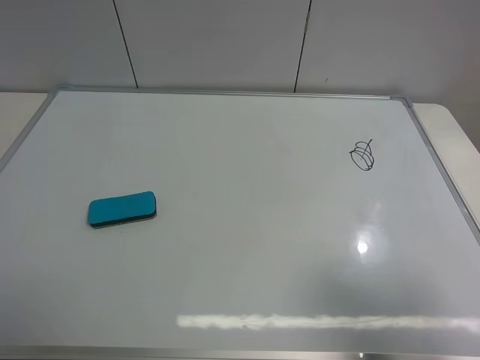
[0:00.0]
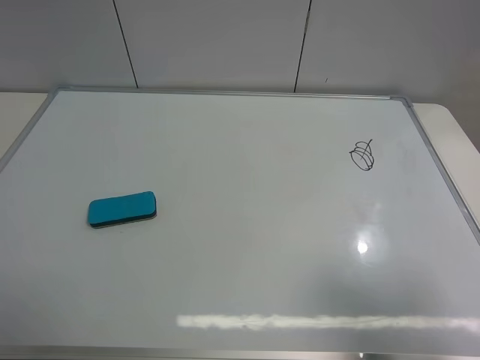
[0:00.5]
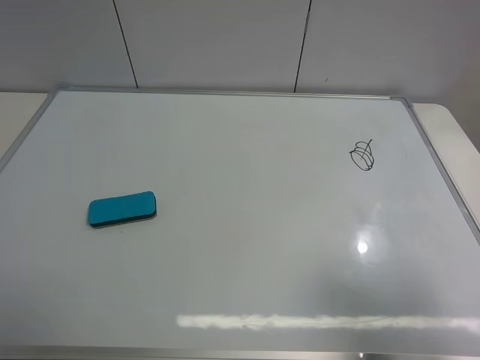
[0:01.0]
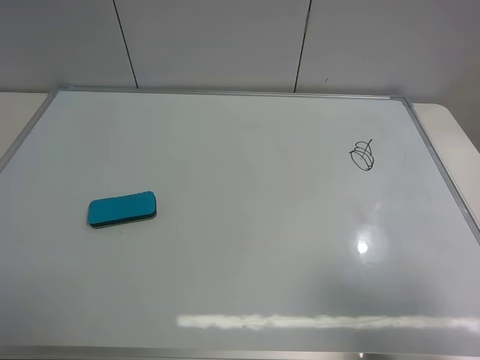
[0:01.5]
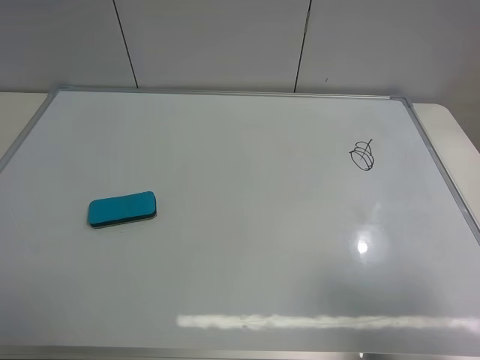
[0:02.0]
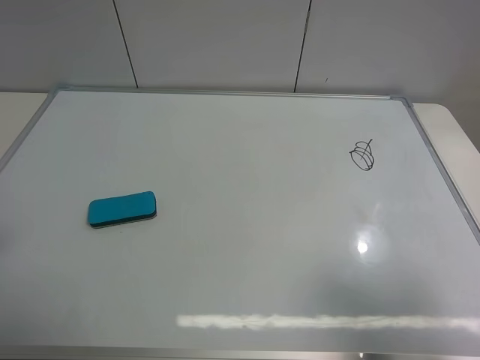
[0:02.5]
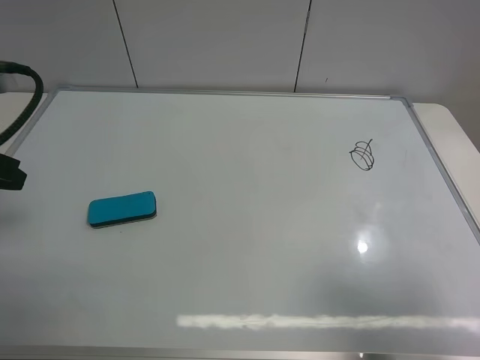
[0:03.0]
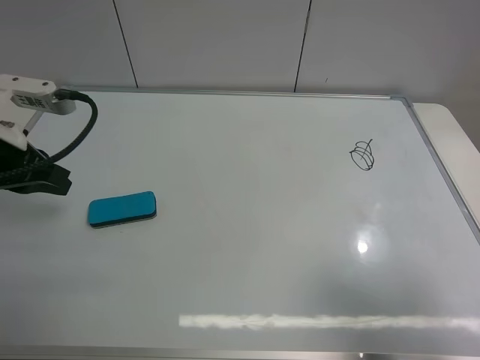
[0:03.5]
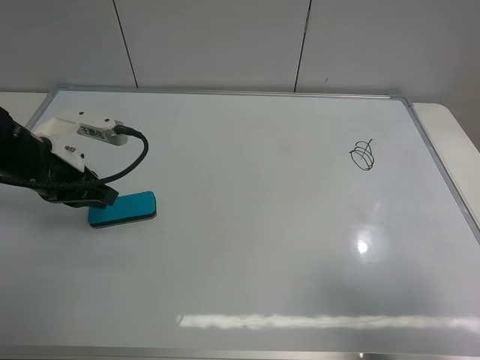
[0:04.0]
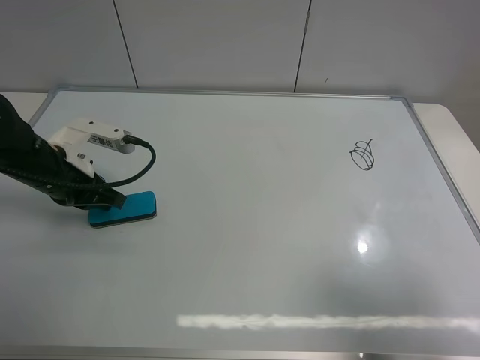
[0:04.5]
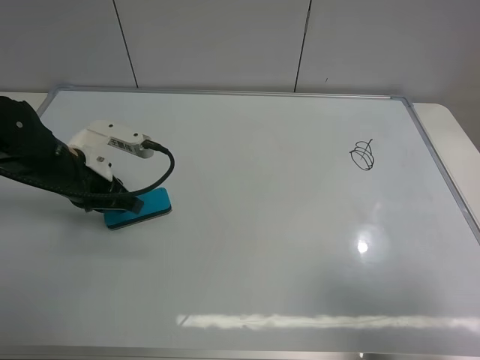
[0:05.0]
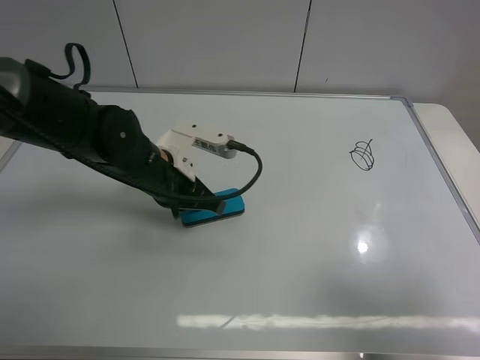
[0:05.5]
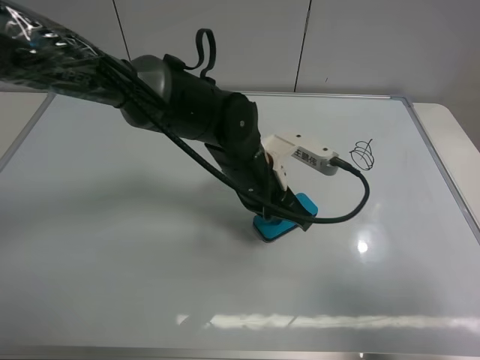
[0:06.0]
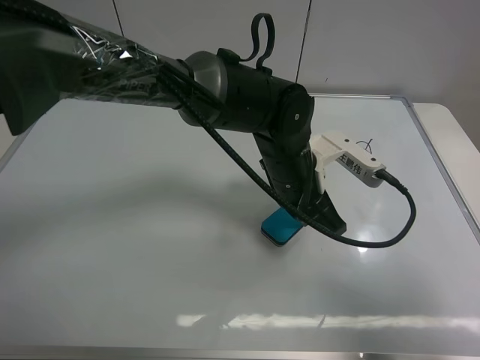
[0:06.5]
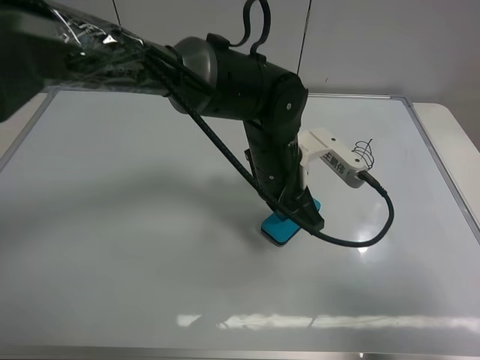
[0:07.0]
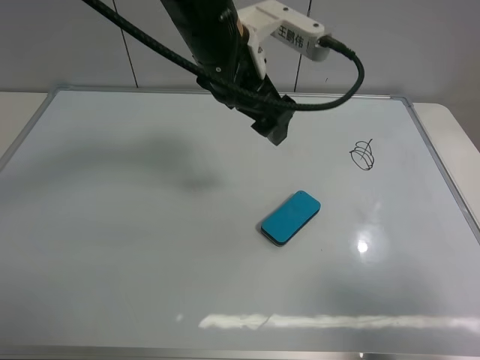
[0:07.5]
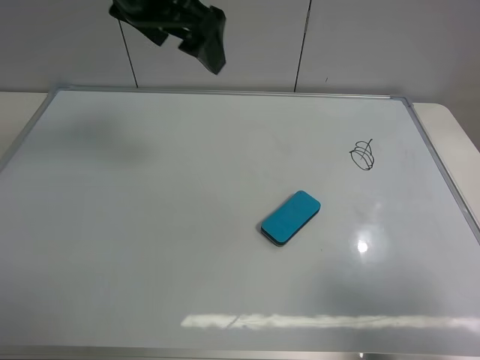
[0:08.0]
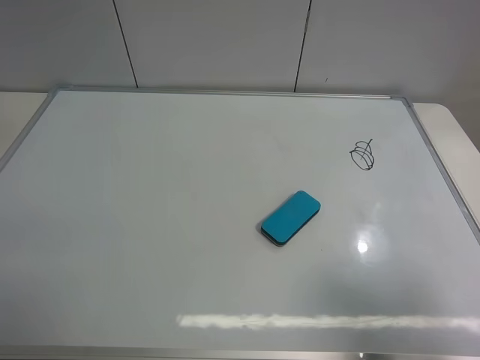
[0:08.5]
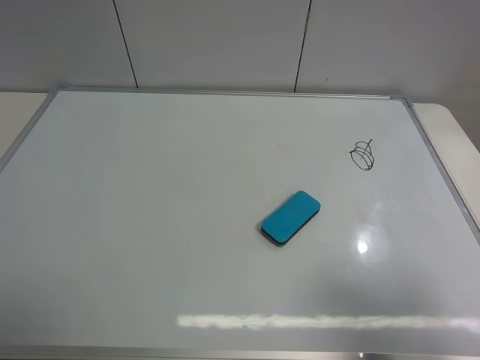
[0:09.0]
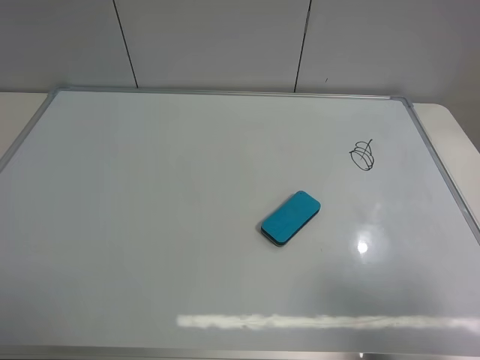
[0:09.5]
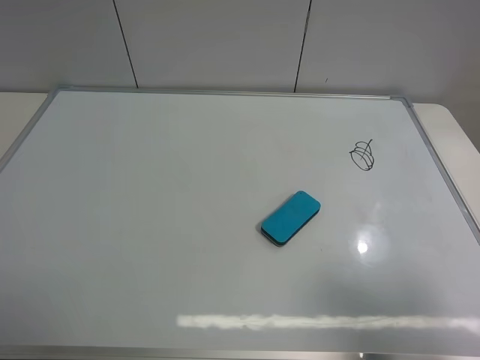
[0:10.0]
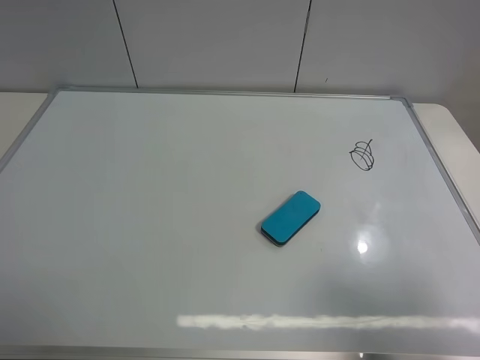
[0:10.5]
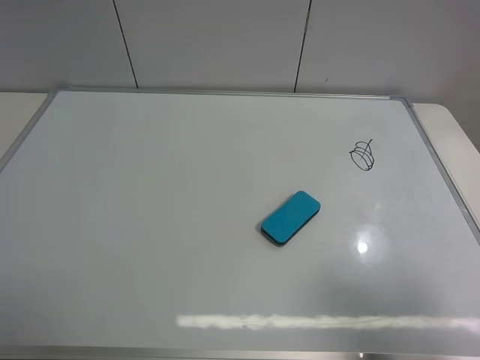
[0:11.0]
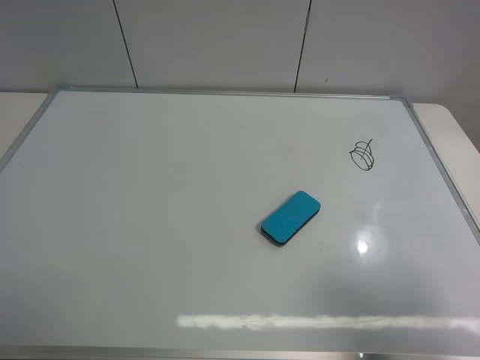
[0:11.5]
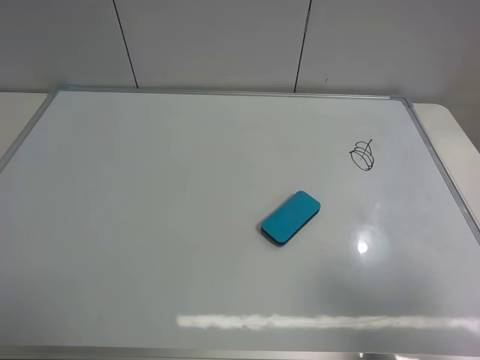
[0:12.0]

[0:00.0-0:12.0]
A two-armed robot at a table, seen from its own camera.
Task of the whole recording: use the left gripper to place the eraser in the right, use the right gripper to pick up the eraser, wipe the notes on the whiteboard clean, and then put it down.
Step, 0:00.0 to 0:07.0: Move the board eraser to the right of the whiteboard with left gripper.
0:02.0 to 0:04.0: The left gripper moves forward and downward, roughly 25 cm, and closes.
0:04.0 to 0:06.0: The left gripper heads to the right, covering approximately 30 cm.
0:06.0 to 0:08.0: The left gripper shifts about 30 cm upward and to the left, and opens its fingers.
0:08.0 to 0:10.0: The left gripper moves backward and to the left, roughly 40 cm.
0:10.0 to 0:12.0: Both grippers stay put.

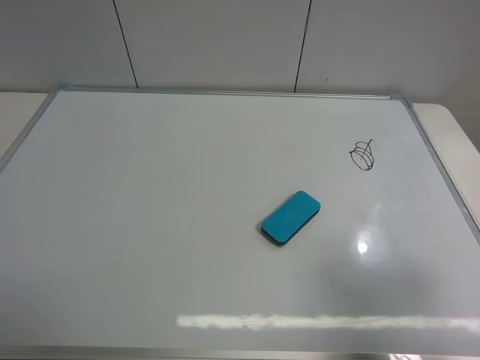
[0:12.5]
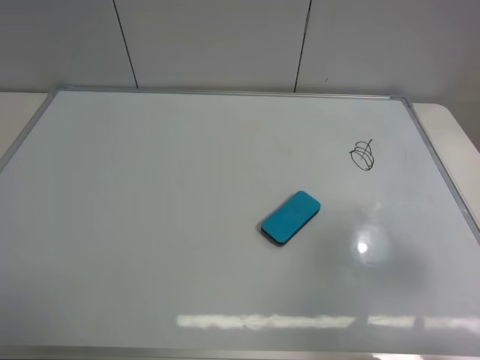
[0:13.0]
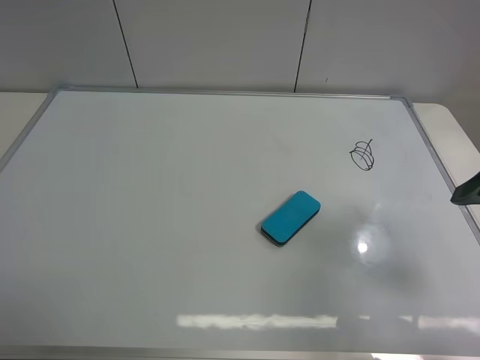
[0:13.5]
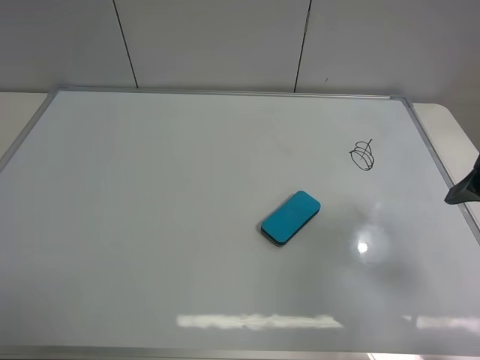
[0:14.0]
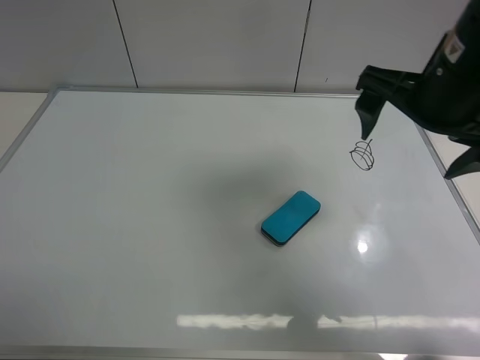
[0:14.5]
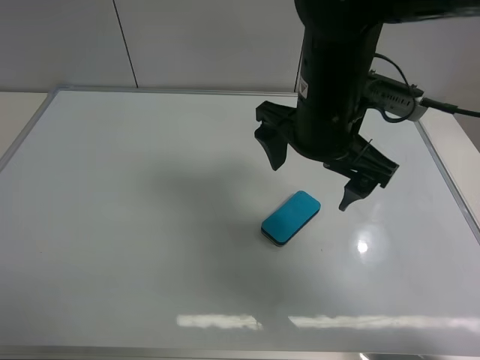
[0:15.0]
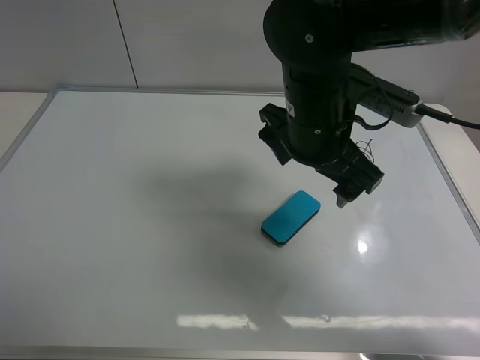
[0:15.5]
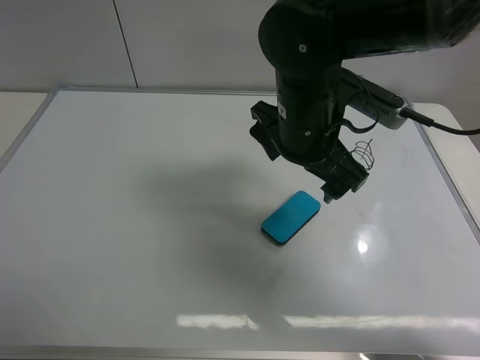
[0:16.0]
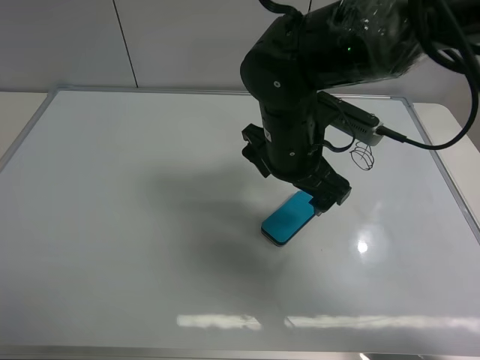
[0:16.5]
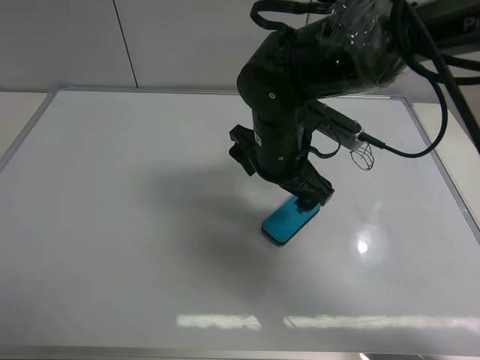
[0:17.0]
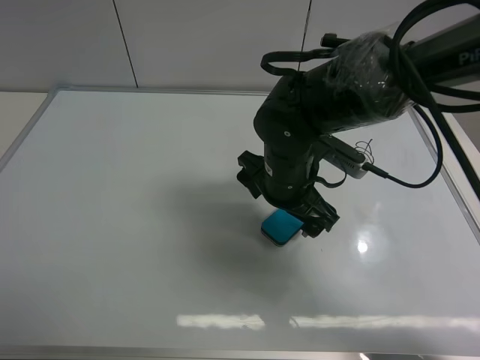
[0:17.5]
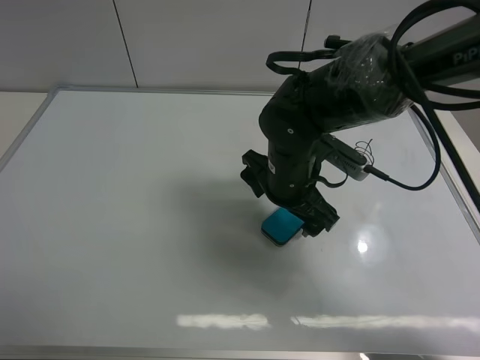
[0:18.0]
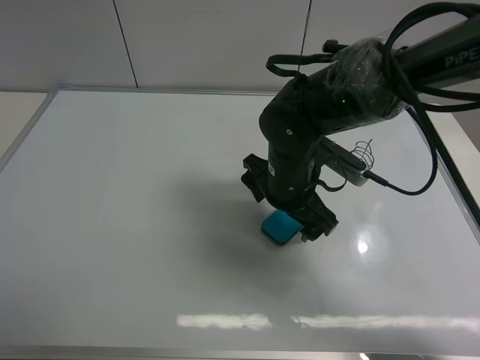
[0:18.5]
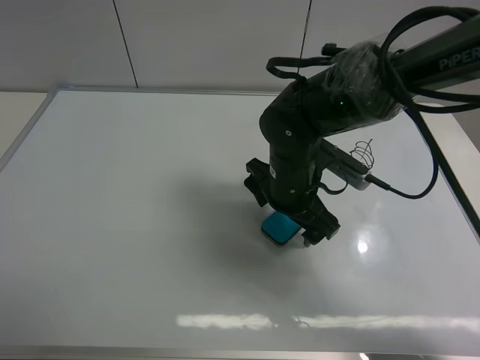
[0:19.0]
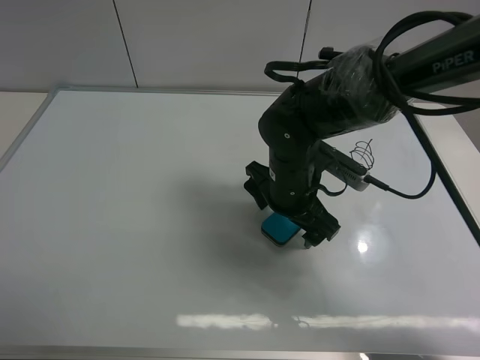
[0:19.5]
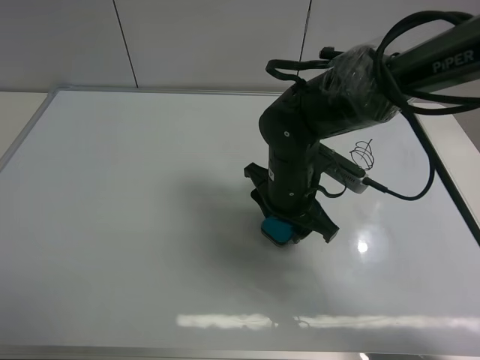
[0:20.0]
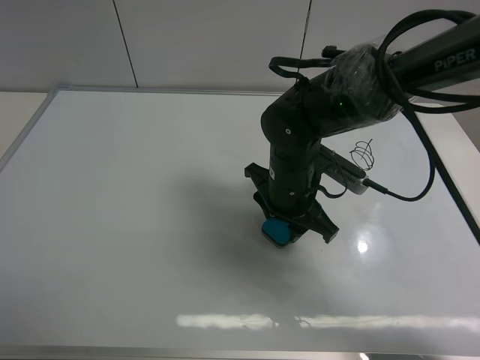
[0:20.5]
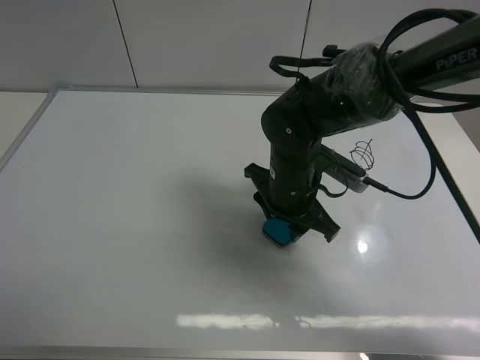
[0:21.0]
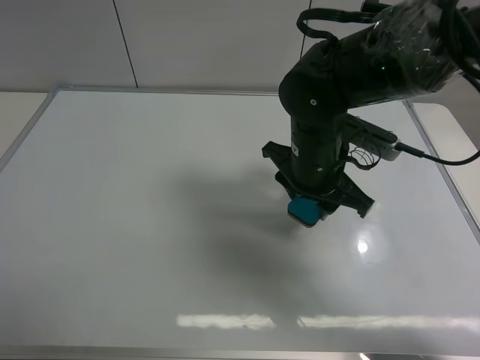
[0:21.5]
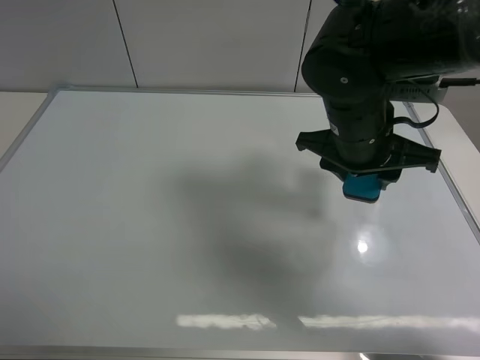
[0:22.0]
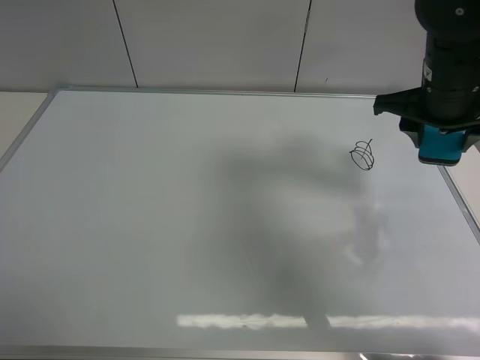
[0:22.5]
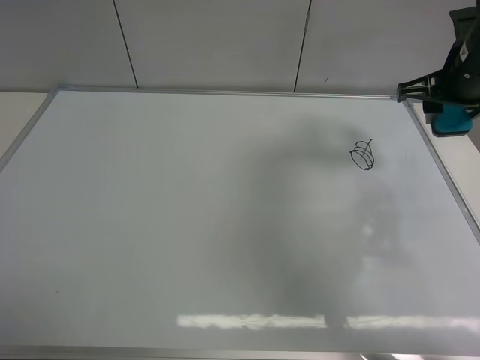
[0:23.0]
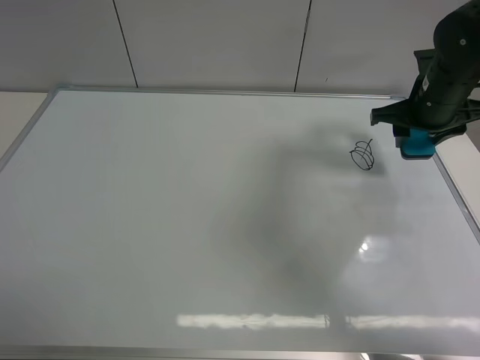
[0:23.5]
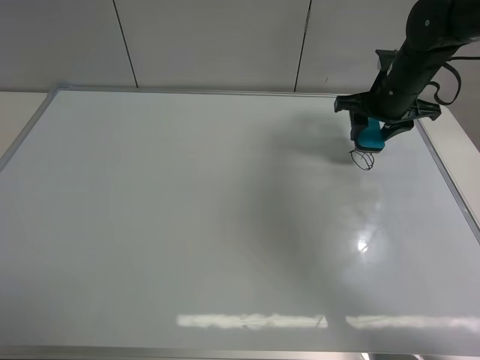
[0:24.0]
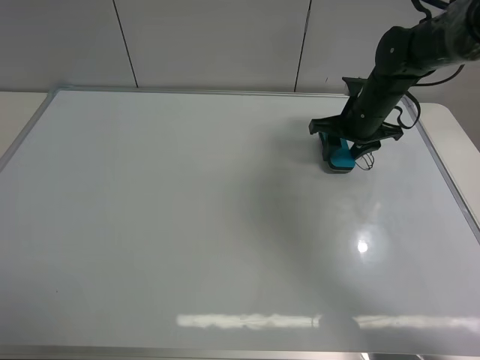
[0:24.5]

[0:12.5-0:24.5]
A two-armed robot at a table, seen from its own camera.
Task of the whole recording: use the left gripper to place the eraser in the right, use the right gripper to pick up the eraser, wipe the notes on the whiteboard clean, and then put it down.
Step, 0:12.5 to 0:21.0: Pick up the board eraser with right gripper.
0:12.5 to 0:14.5: The right gripper travels forward and to the left by approximately 25 cm.
0:14.5 to 0:16.5: The right gripper travels to the left and downward by about 15 cm.
0:16.5 to 0:18.5: The right gripper goes about 5 cm downward.
0:18.5 to 0:20.5: The right gripper closes up.
0:20.5 to 0:22.5: The right gripper heads to the right and upward, covering about 20 cm.
0:22.5 to 0:24.5: The right gripper moves forward and downward, about 15 cm.

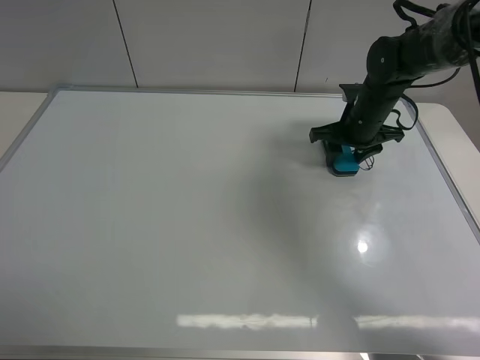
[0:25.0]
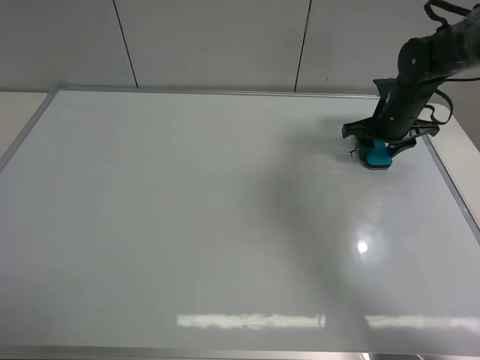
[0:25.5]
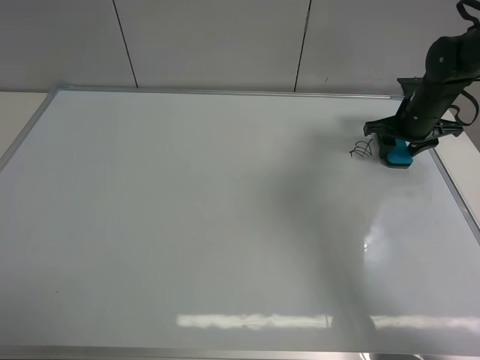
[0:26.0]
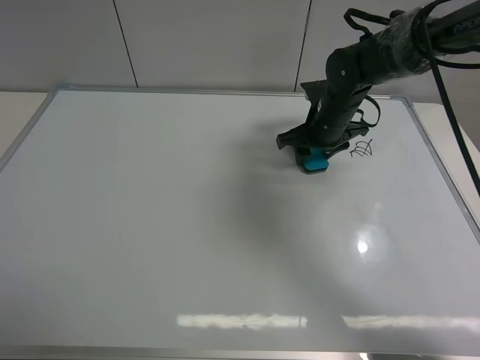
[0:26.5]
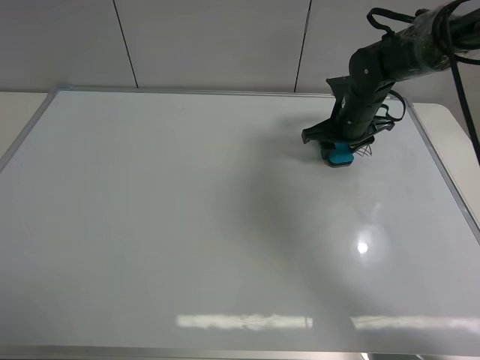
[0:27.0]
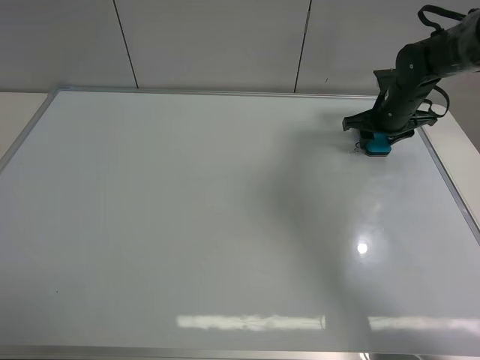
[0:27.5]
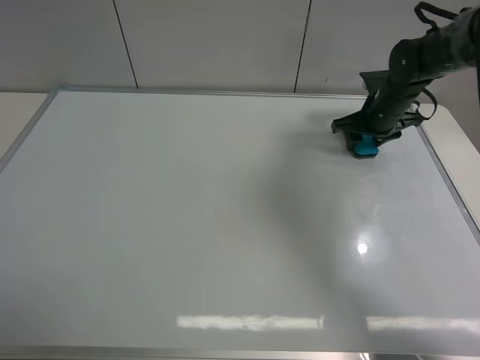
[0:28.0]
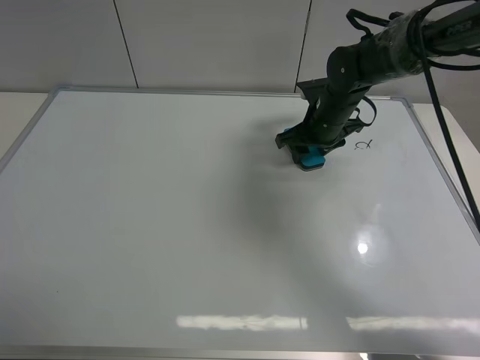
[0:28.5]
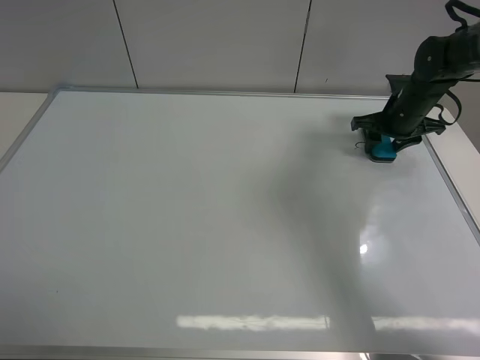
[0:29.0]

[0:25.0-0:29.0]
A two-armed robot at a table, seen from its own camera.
Task of the whole recording: use the left gripper to place the eraser in the right, use the right gripper to pick up the eraser, wipe the notes on the whiteboard clean, and then put it down.
0:25.0 to 0:27.0: The right gripper travels to the right and back again, about 10 cm each way.
0:27.0 to 0:29.0: The right gripper moves left and right over about 15 cm, changing direction 2 times.
